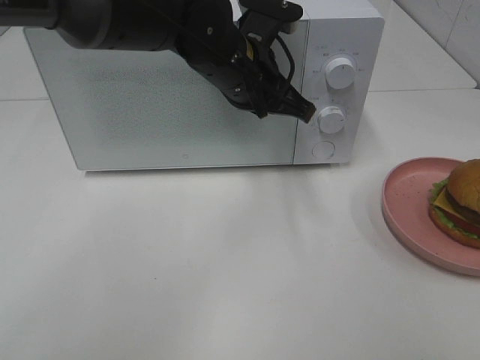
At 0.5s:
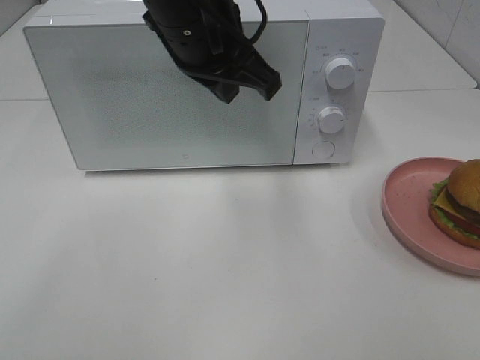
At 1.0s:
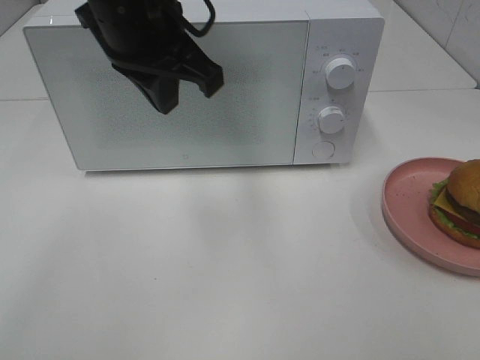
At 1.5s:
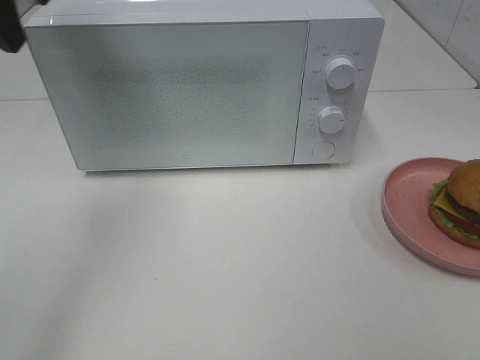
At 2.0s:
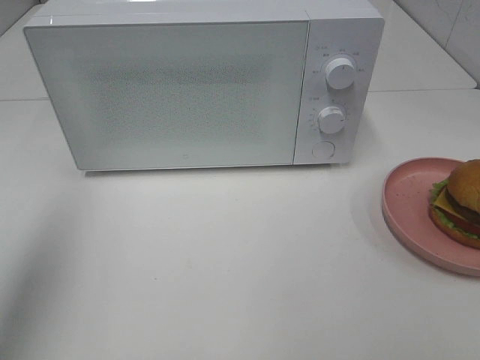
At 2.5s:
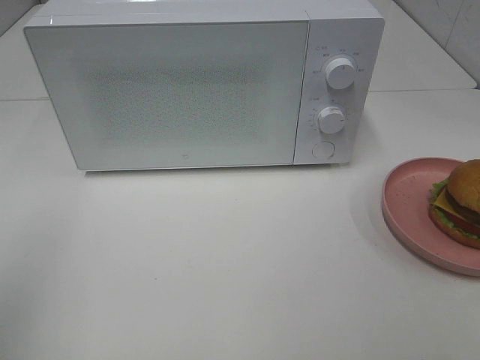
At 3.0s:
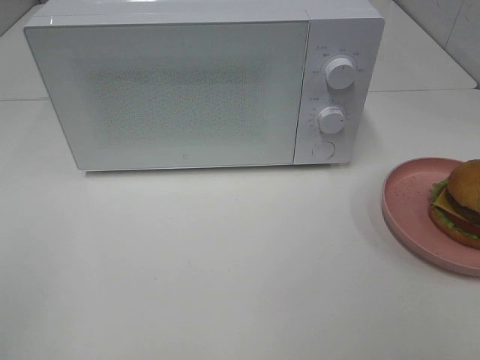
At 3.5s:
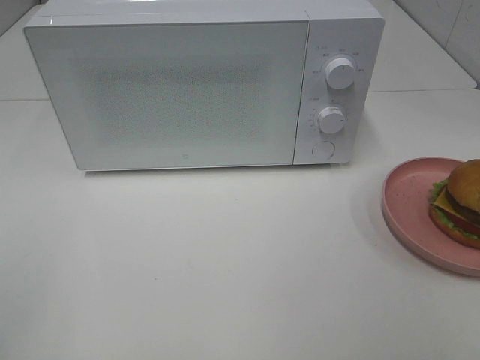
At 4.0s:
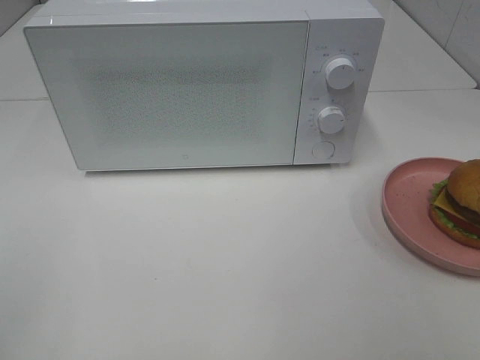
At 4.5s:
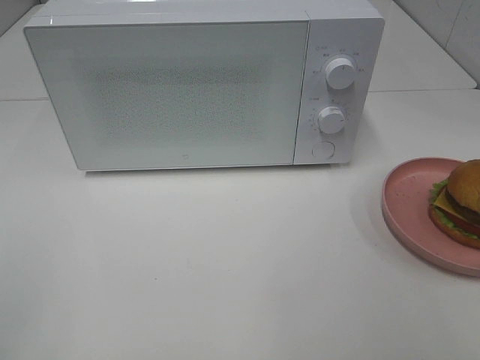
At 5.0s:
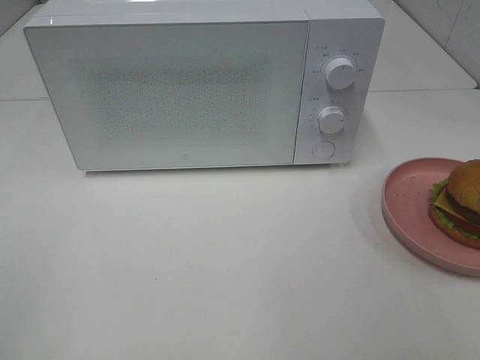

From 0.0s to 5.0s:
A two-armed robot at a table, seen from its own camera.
Task of the whole recording: Heat the burger.
From 0.0s to 2.5s: The left gripper is displaced to the left and backward by about 40 cm.

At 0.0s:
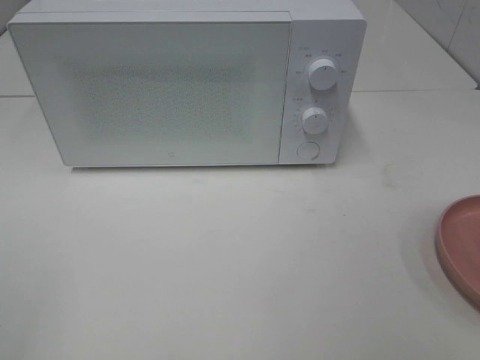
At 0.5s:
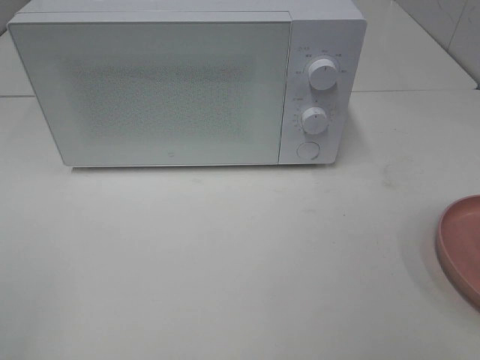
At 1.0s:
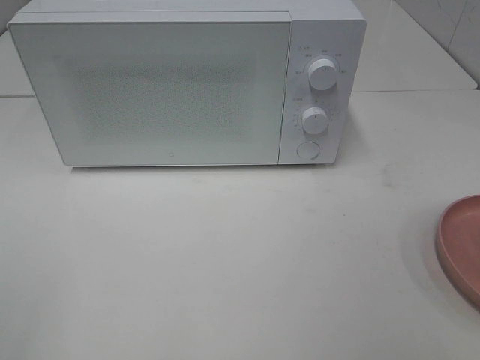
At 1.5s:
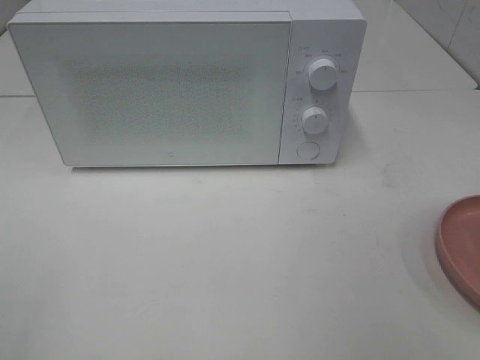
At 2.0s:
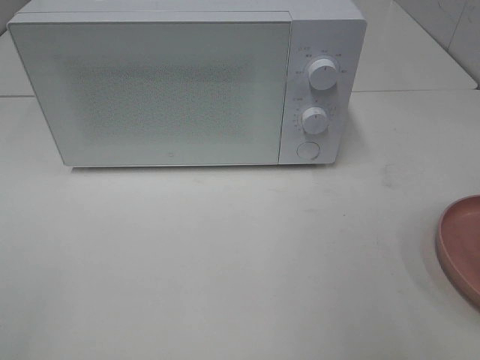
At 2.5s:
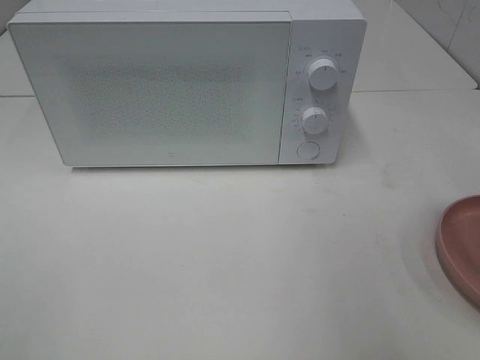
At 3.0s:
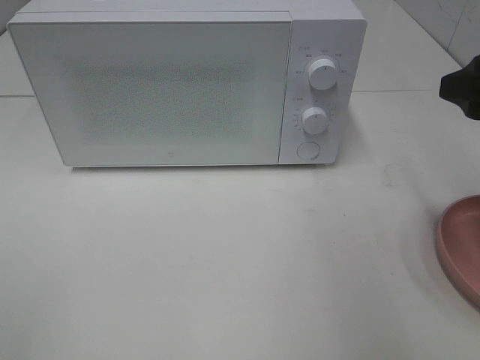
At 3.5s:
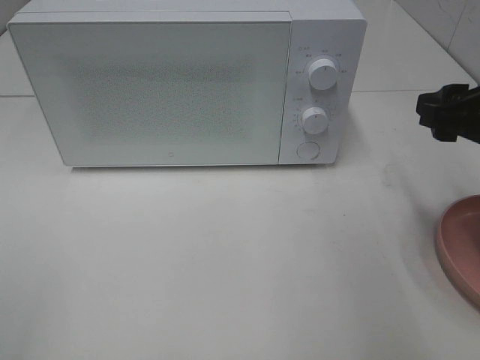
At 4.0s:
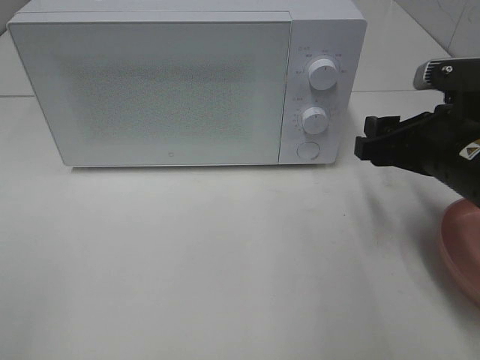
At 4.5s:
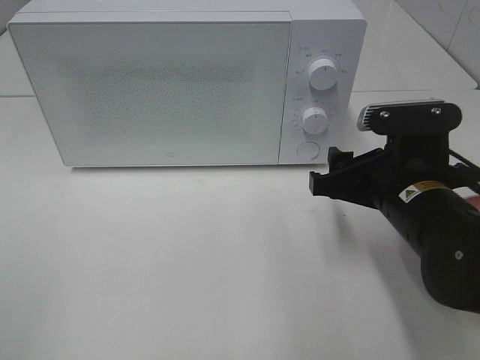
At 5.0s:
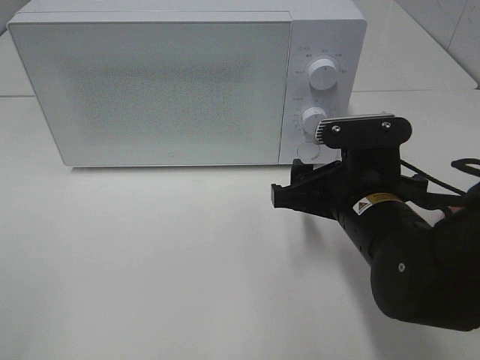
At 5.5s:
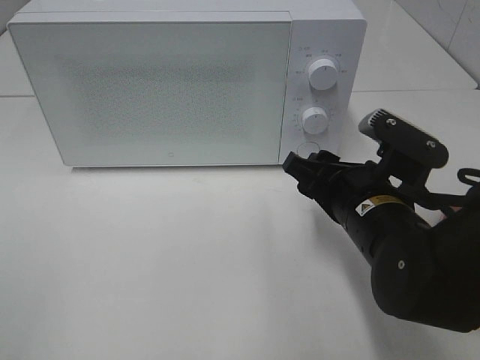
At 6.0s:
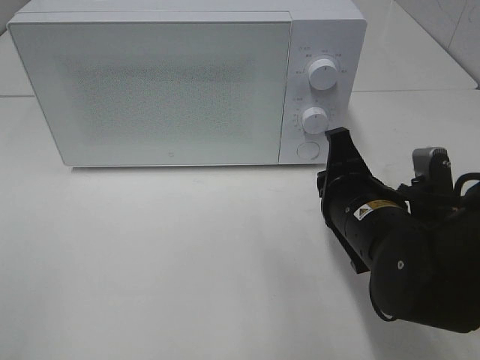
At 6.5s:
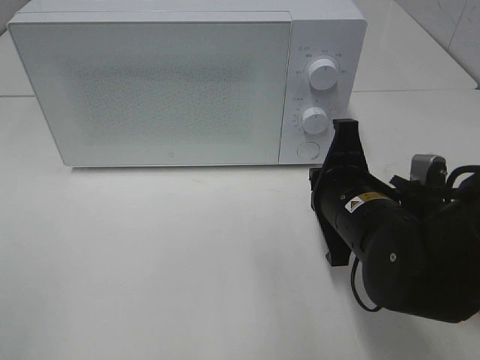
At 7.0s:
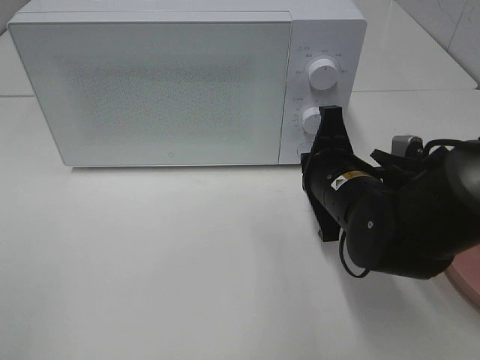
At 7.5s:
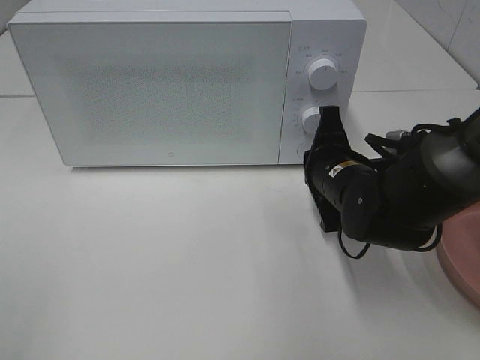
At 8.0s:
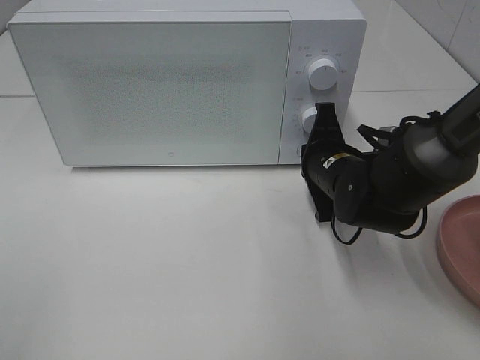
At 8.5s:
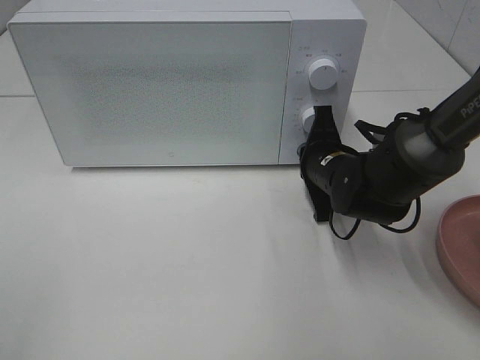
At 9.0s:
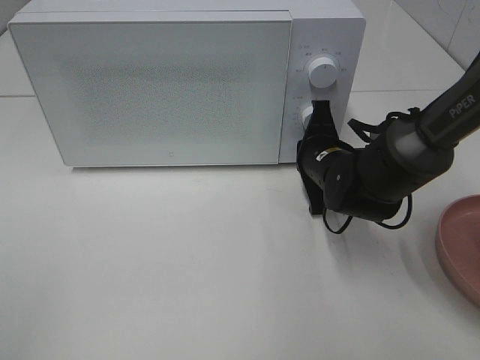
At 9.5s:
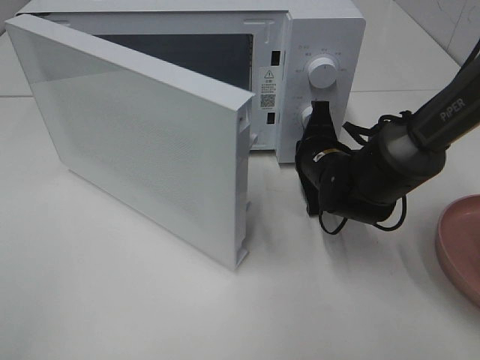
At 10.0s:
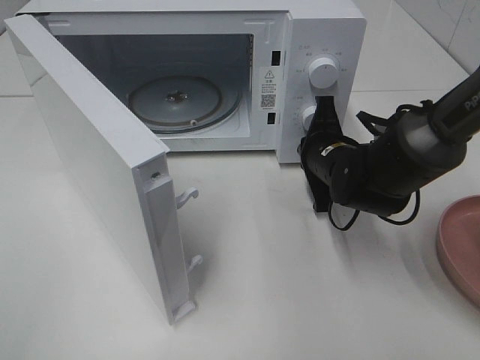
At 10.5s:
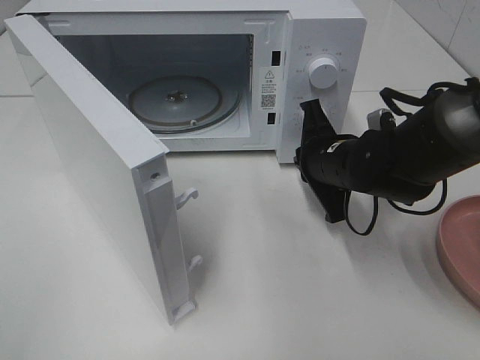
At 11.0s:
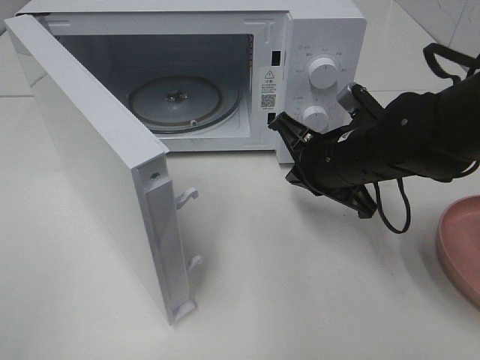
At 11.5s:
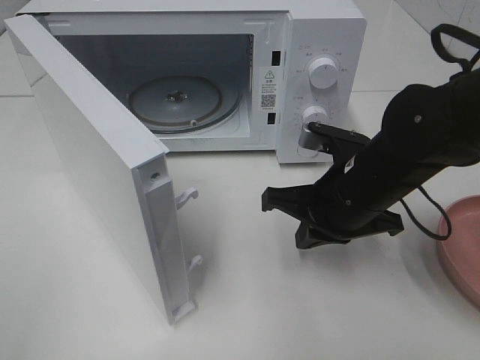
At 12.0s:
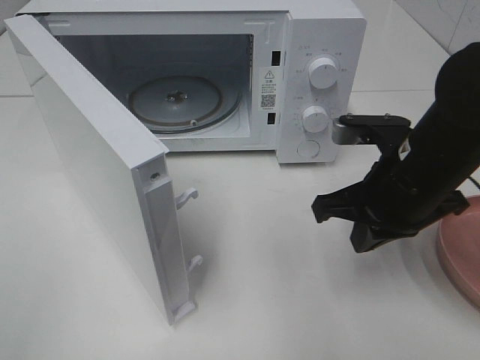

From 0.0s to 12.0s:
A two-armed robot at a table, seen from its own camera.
Task of the whole recording: Heat the burger.
Step, from 0.0s to 10.0s: Right hand: press the switch.
From 2.0s to 4.0s: The right gripper is displaced forward, downward and to the left by some 20 cm.
From 4.0s to 6.0s: The right gripper shifts some 10 cm to the left and downward, and closes.
From 6.0s to 8.0s: The right gripper is displaced forward by about 10 cm.
From 10.0s to 12.0s: The right gripper goes approximately 15 cm backward and upward.

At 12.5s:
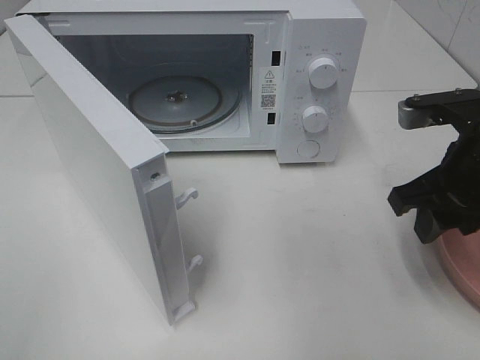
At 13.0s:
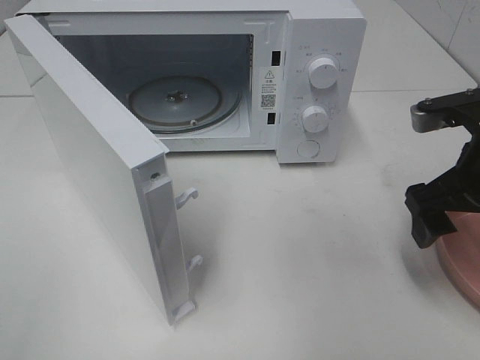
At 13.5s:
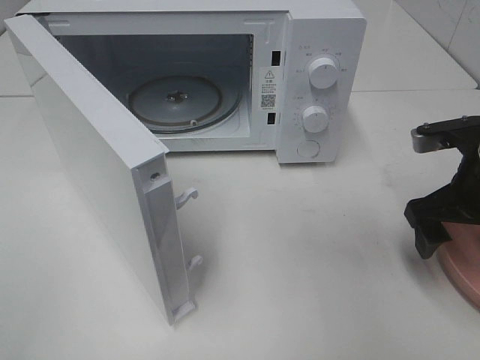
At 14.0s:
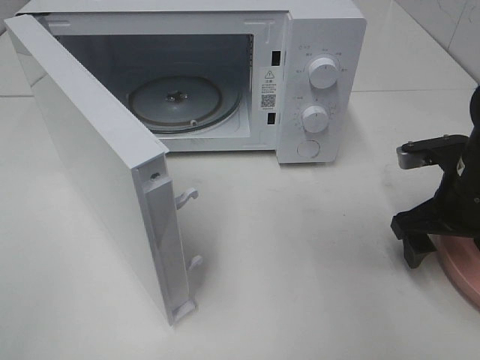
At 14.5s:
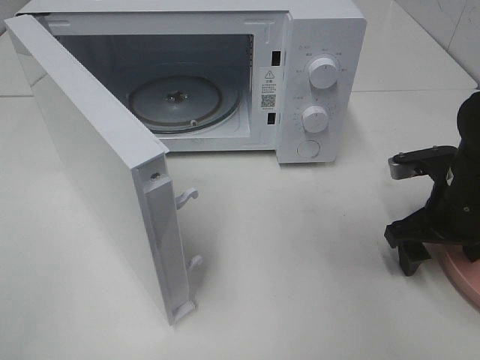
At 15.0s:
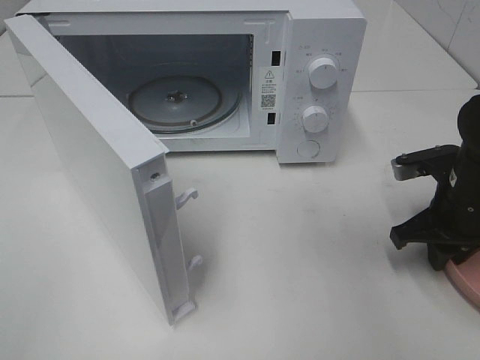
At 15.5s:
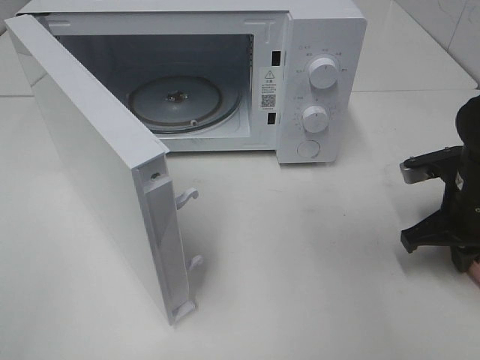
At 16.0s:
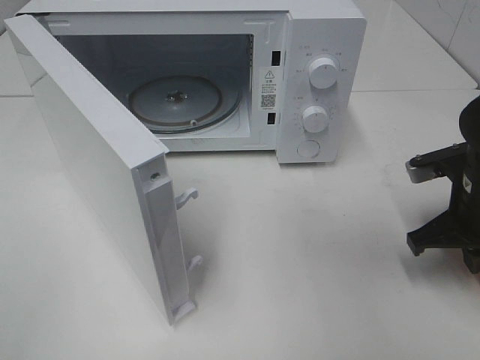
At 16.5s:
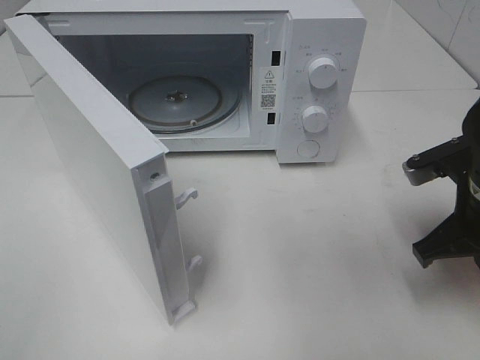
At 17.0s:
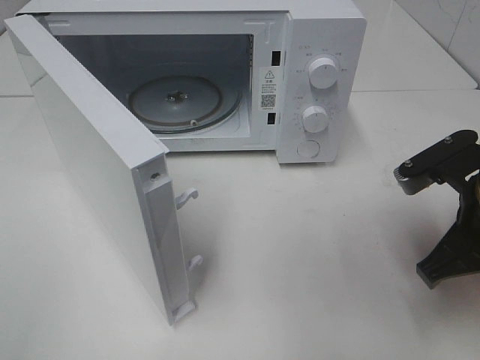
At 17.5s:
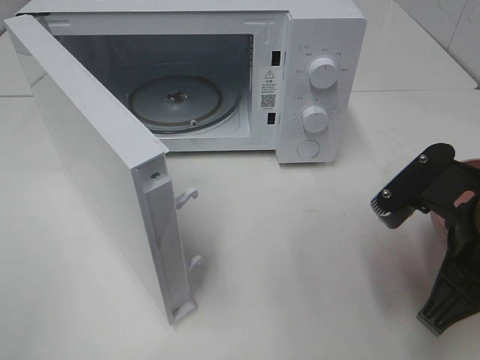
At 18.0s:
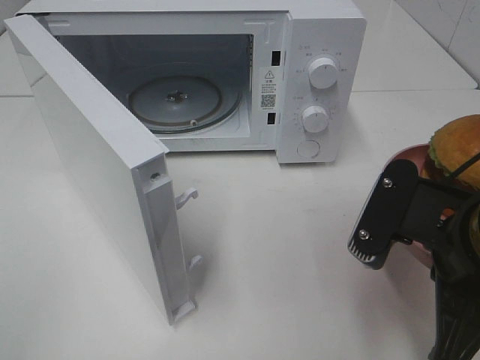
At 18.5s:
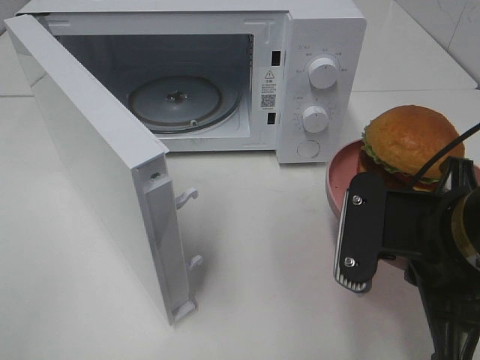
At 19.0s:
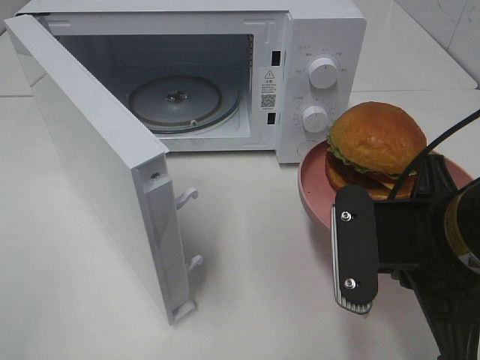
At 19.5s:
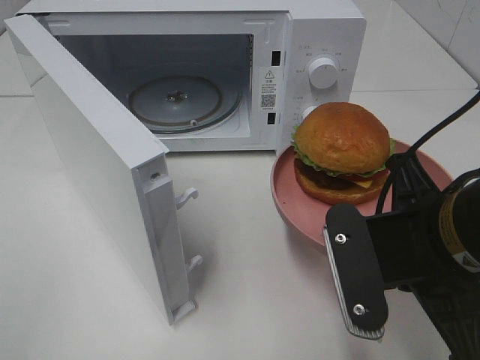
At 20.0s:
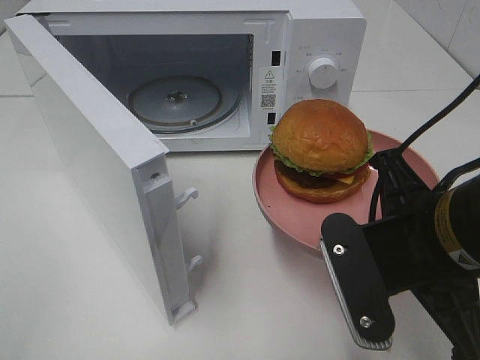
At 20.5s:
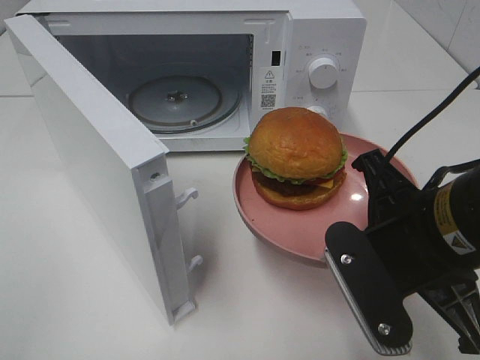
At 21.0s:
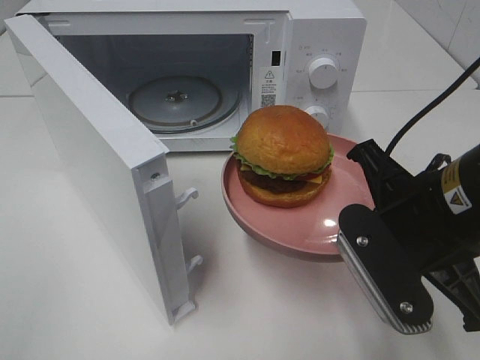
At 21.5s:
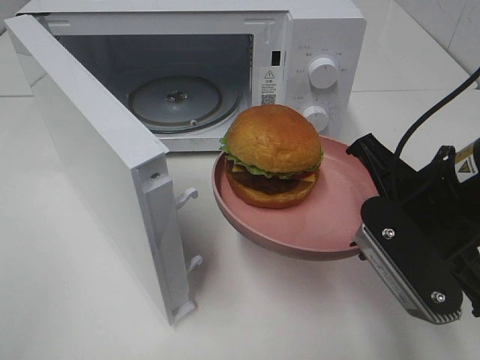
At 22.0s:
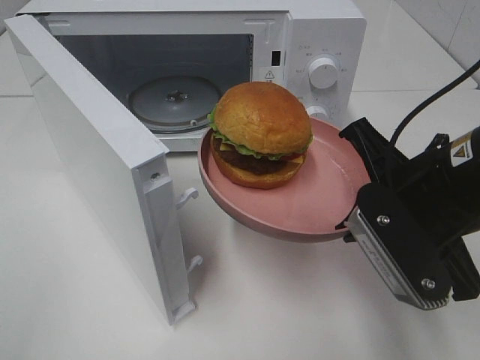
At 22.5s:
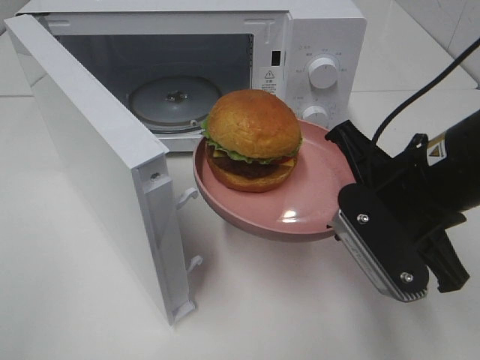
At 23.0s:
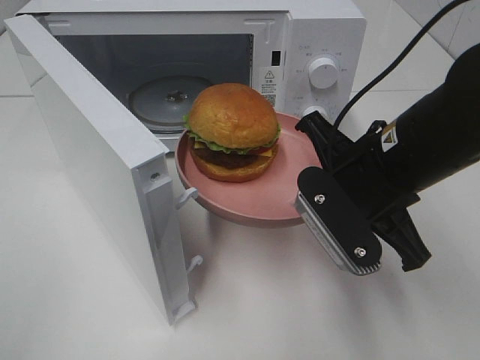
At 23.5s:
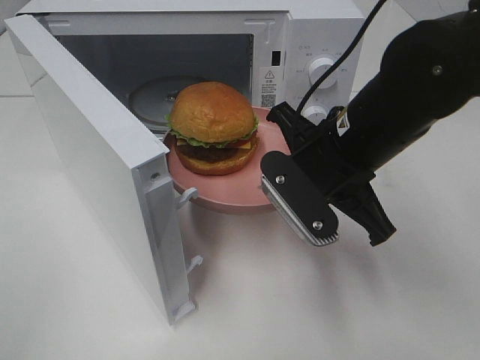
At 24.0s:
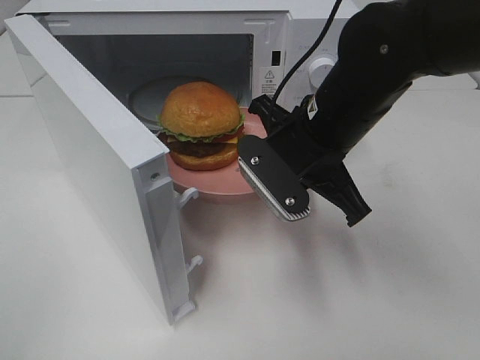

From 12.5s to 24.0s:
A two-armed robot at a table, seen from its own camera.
Task of the whole recording: Heat the burger.
Step, from 12.5s to 15.0s: Right hand: grab the plate with the hamburger.
From 12.5s to 14.5s: The right gripper shifts about 10 cm downward, and opens.
From 14.5s to 16.5s: The right gripper shifts by roughly 5 cm, and closes its fingers.
From 16.5s to 18.5s: The right gripper is displaced backward and to the left by roughly 10 cm.
From 20.0s to 22.0s: The right gripper changes place by about 5 cm.
From 22.0s to 24.0s: The right gripper heads forward and to the left, covering about 10 cm.
